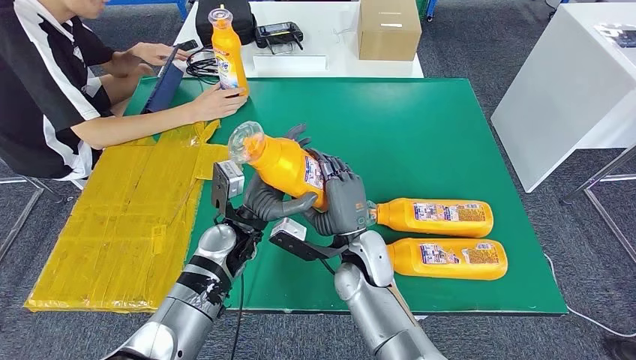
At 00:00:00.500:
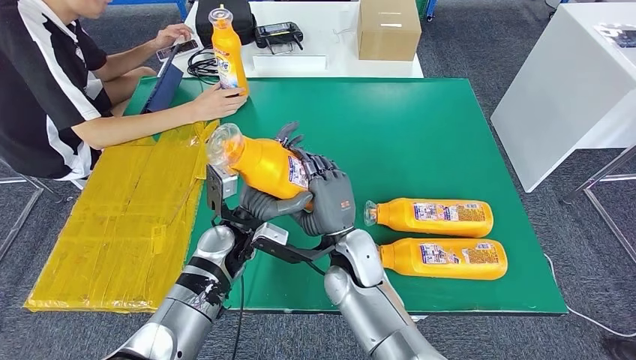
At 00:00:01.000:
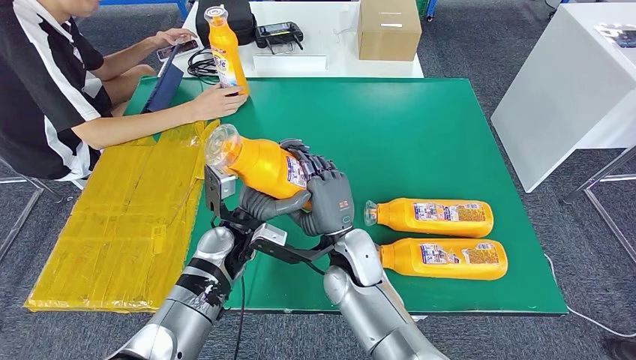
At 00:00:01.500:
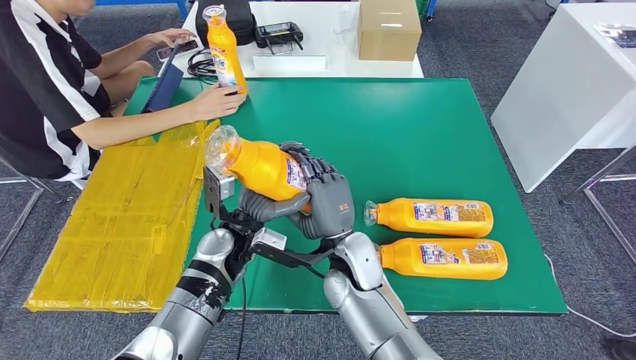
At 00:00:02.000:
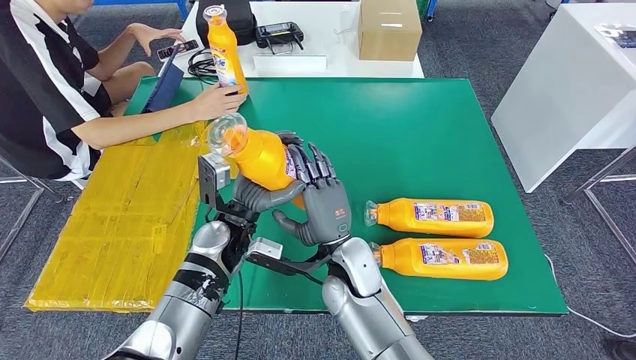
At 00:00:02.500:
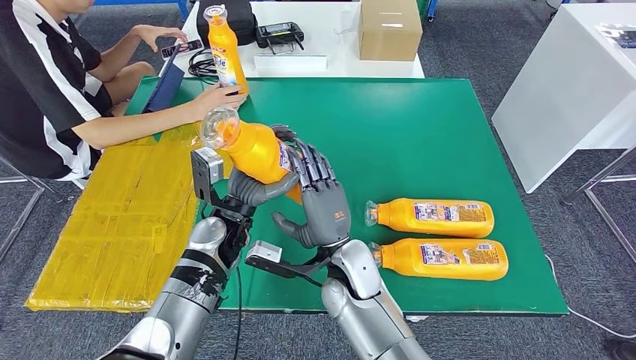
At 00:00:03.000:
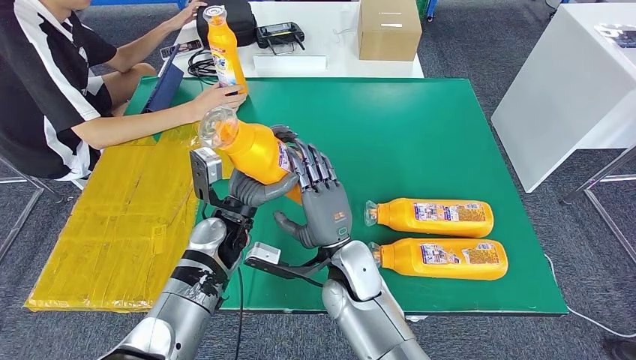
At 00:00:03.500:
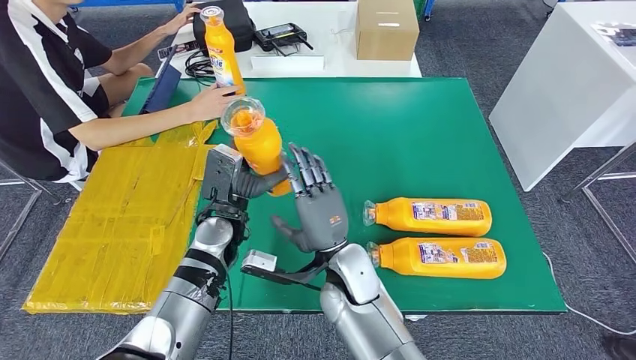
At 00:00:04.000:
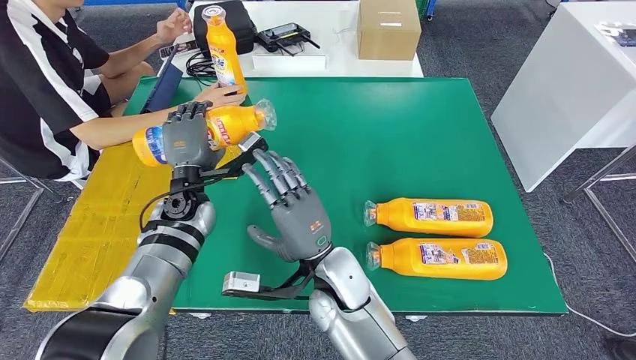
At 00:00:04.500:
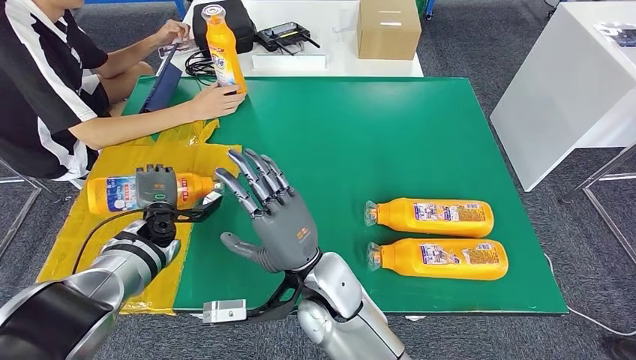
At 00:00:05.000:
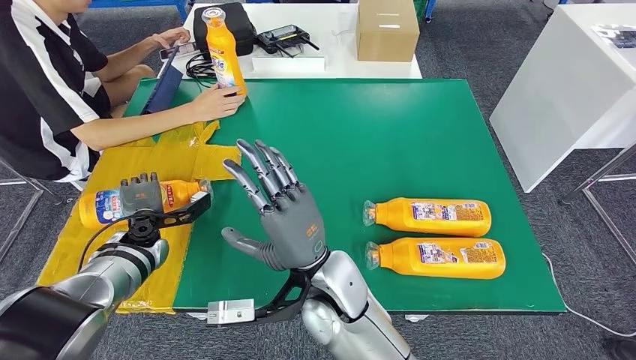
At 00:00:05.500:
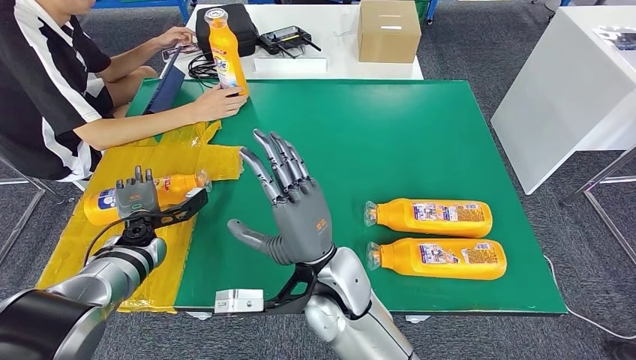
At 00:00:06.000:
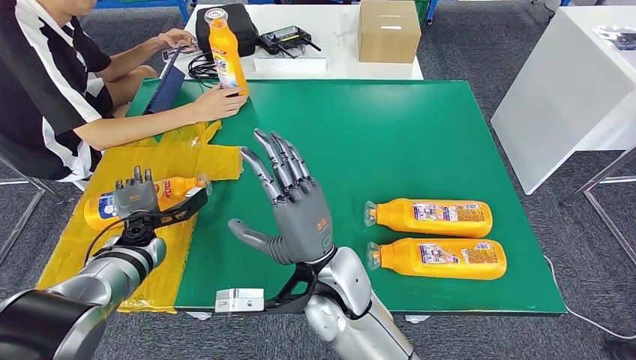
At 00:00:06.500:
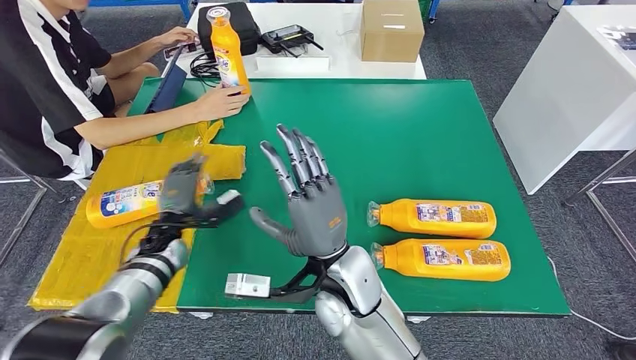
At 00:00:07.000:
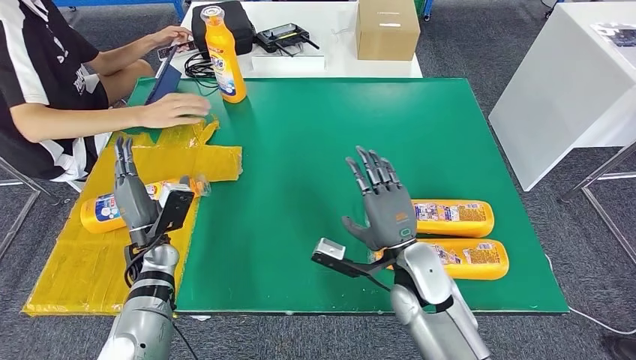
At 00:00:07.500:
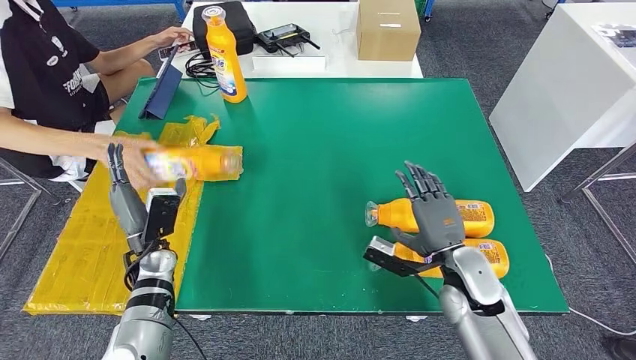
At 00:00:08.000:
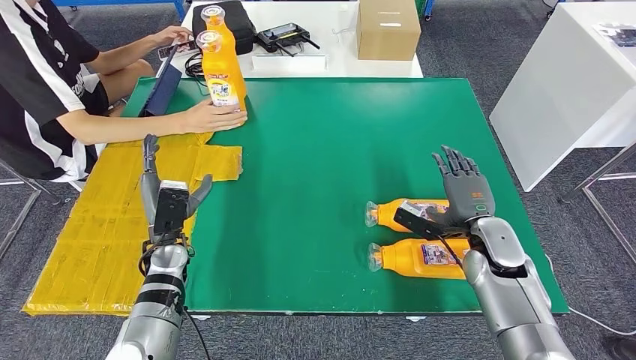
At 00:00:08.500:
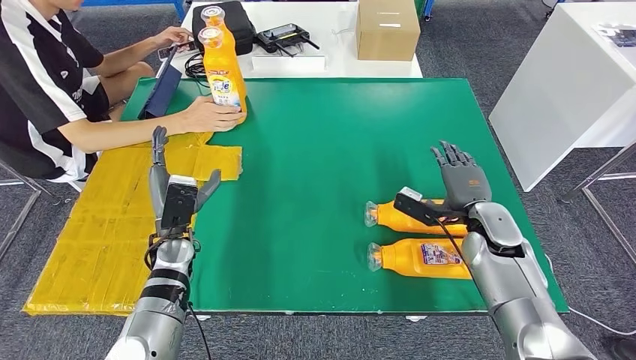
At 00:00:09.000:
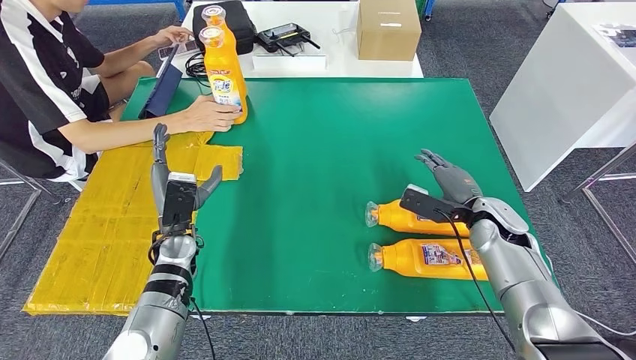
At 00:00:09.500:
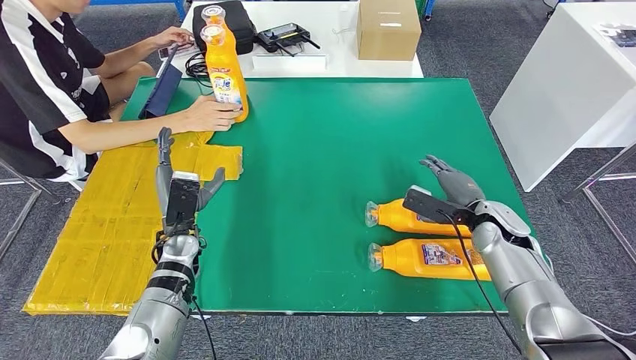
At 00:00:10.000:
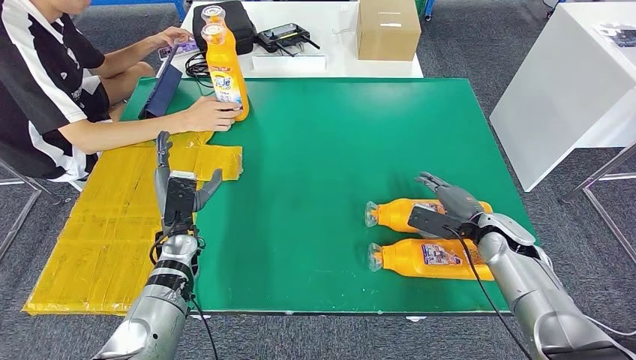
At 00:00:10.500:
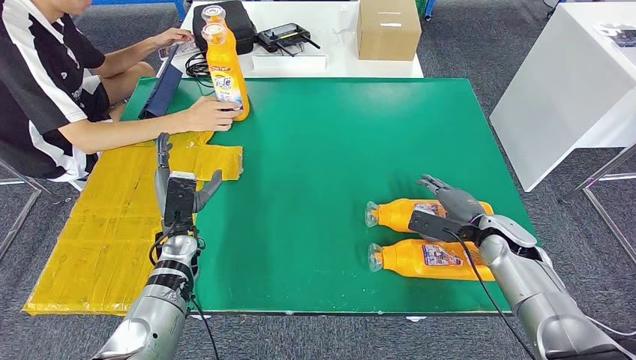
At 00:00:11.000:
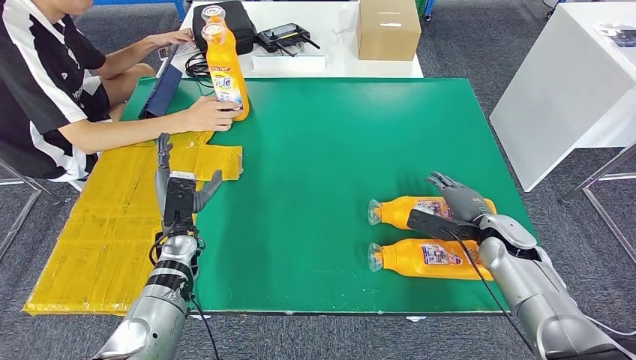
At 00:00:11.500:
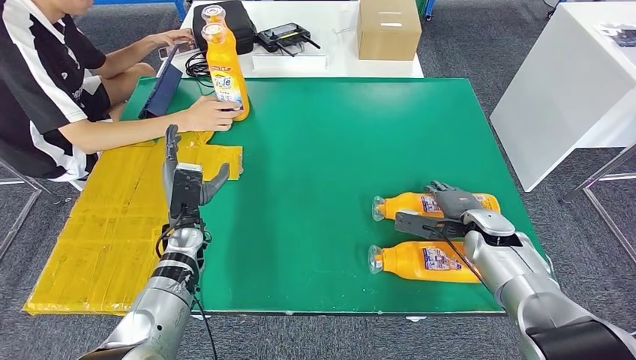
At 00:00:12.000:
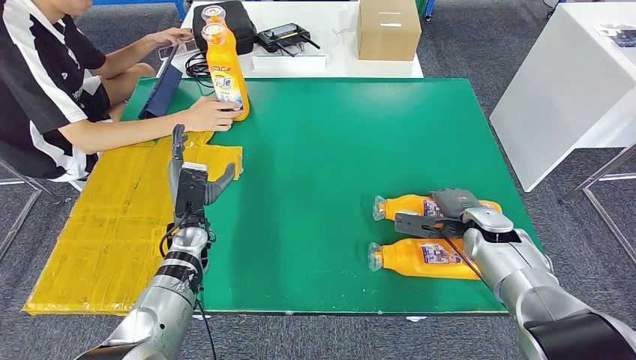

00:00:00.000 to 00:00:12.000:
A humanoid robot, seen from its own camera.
Step, 00:00:00.000 to 00:00:07.500: Flip the bottle to face forward.
00:00:00.000 to 00:00:02.000: The hands stay close to where they were, moving slightly.
00:00:08.000 to 00:00:10.000: The right hand moves about 5 cm.

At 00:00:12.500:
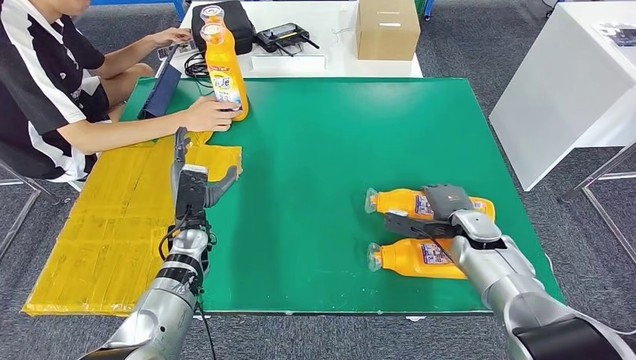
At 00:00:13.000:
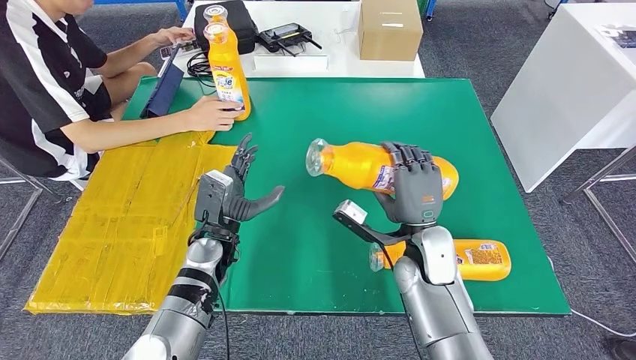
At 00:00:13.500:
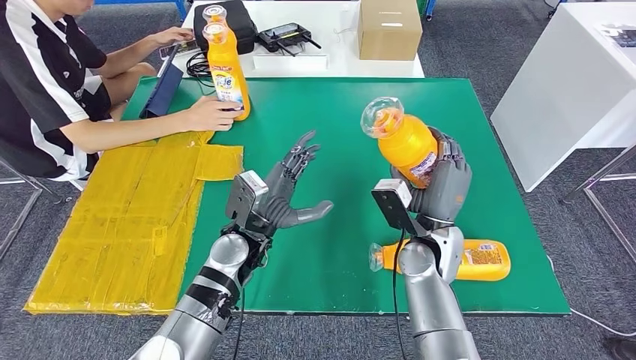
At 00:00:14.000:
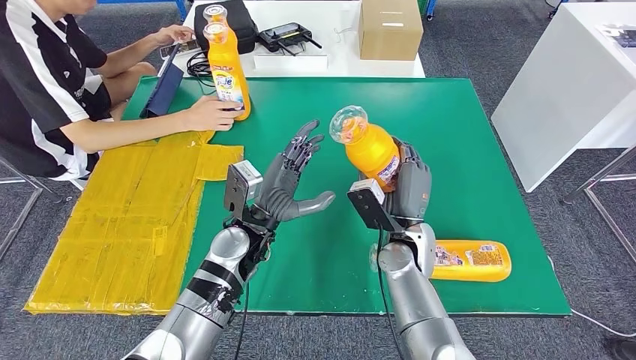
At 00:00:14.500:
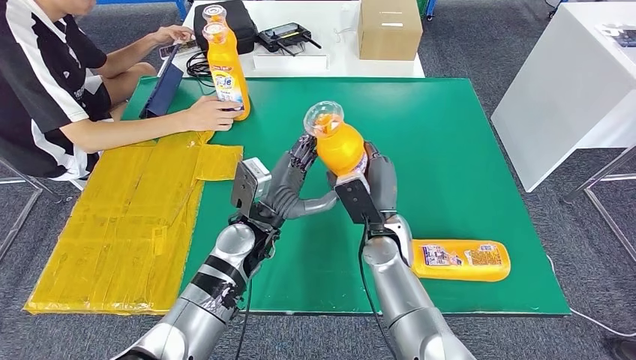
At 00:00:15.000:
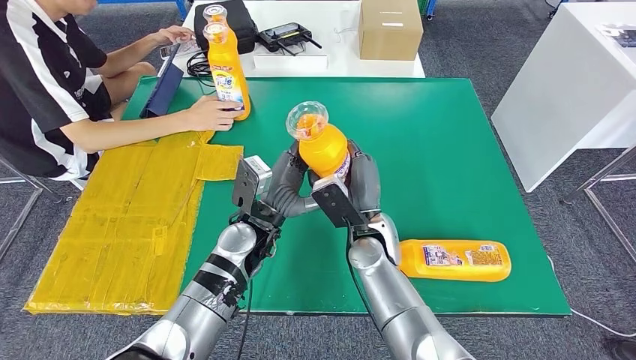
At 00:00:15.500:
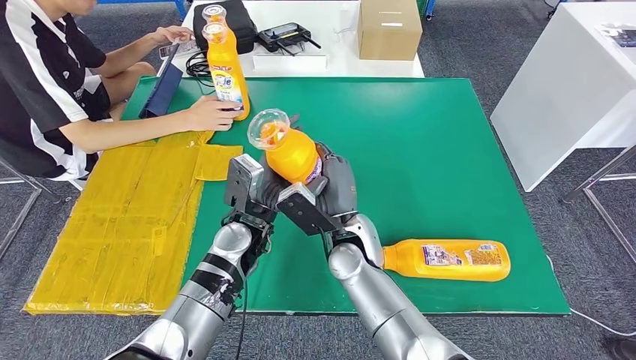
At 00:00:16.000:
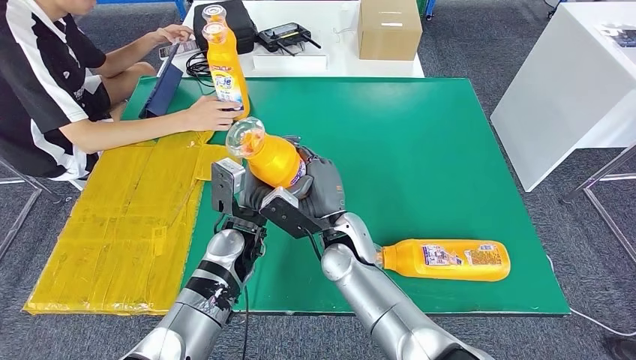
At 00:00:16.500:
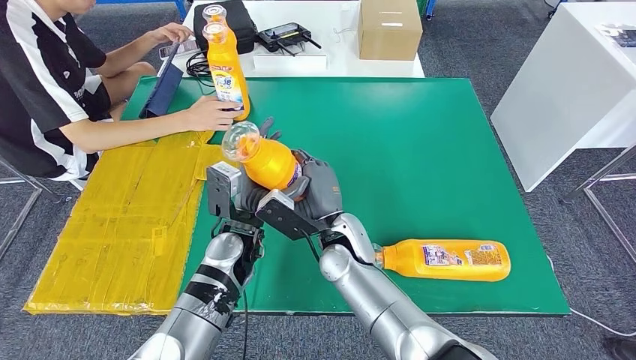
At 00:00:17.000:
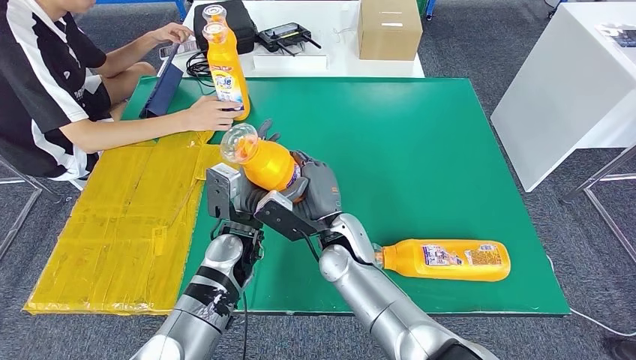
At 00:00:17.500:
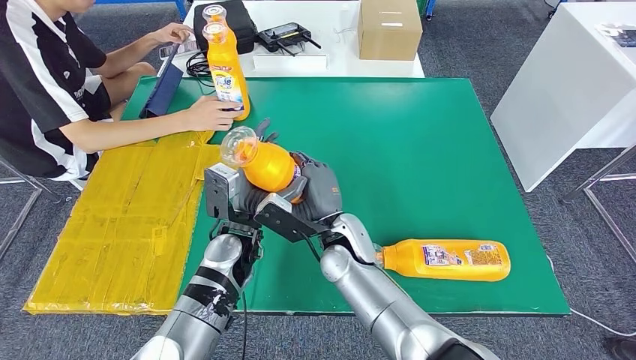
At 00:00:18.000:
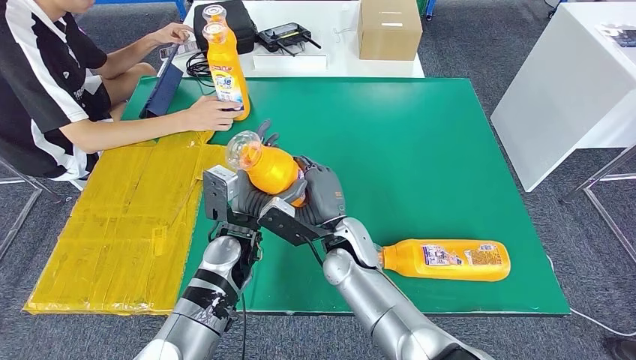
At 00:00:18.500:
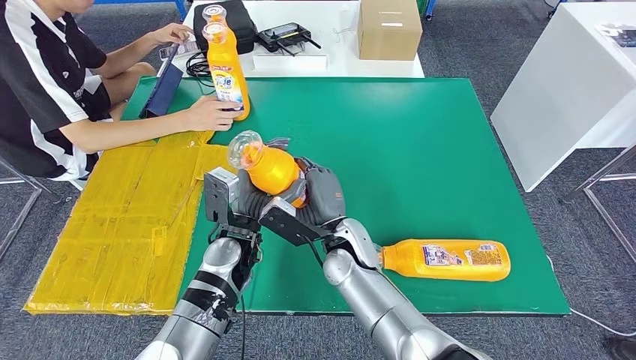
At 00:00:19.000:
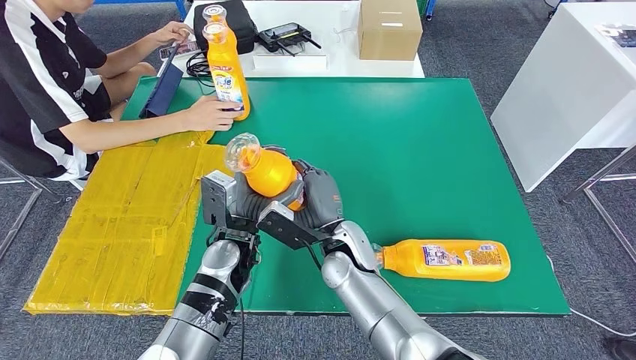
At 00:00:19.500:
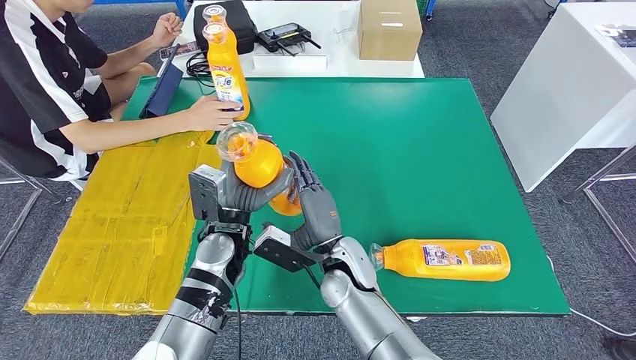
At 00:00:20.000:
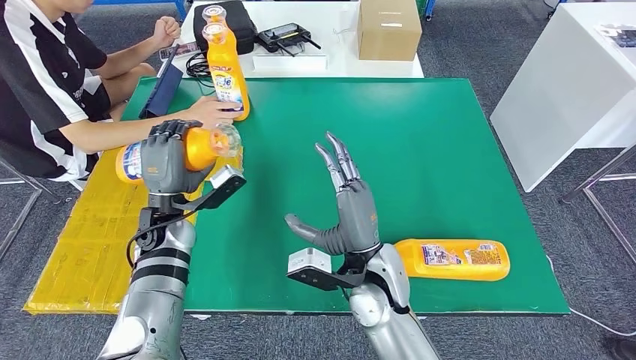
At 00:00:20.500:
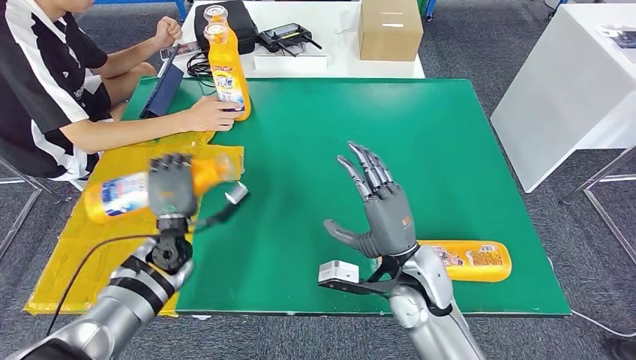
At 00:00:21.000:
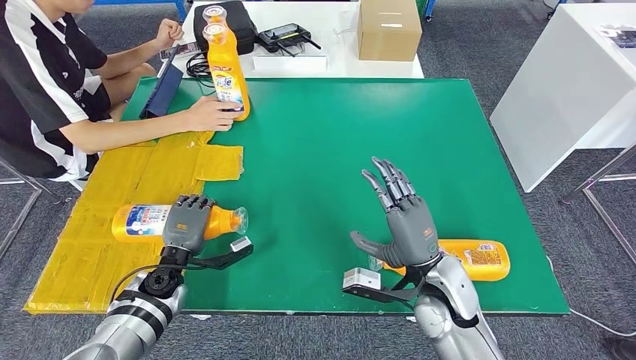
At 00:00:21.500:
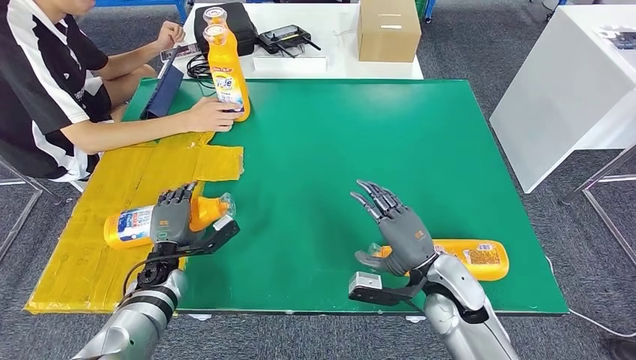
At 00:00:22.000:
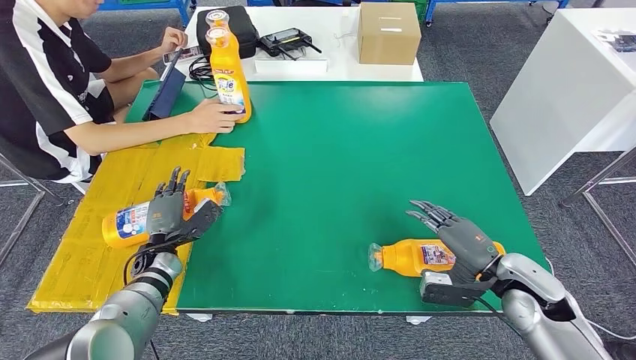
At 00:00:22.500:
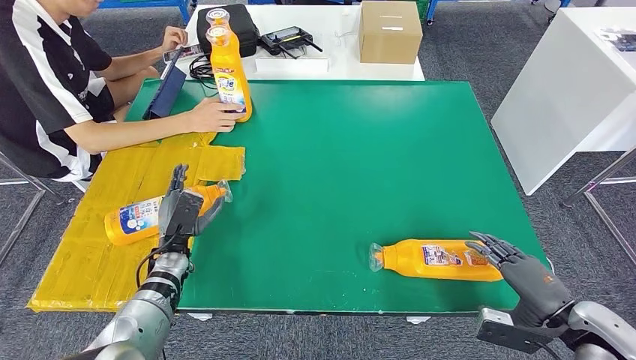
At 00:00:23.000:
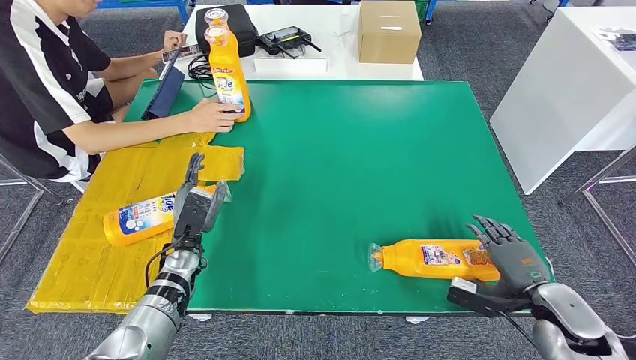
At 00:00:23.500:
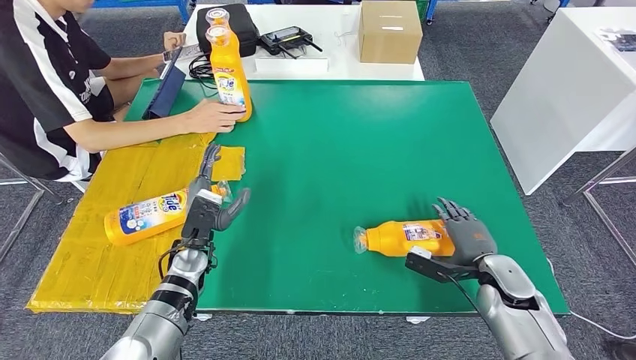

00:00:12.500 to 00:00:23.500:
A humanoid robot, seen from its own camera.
Step, 00:00:14.500 to 00:00:20.500: Flip the bottle to face forward.
00:00:14.500 to 00:00:16.000: The right hand shifts about 10 cm to the left.
00:00:16.000 to 00:00:18.000: The hands stay close to where they were, moving slightly.
00:00:18.000 to 00:00:20.000: The left hand goes about 15 cm to the left, while the right hand moves backward, some 5 cm.
